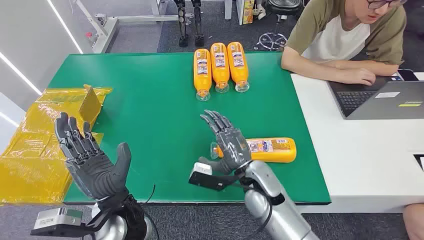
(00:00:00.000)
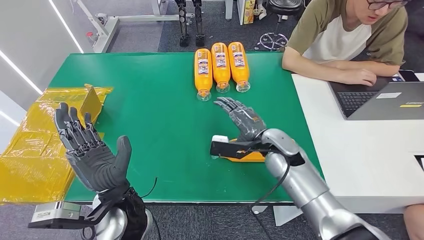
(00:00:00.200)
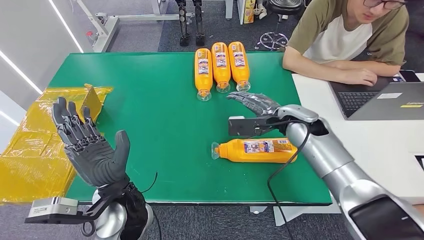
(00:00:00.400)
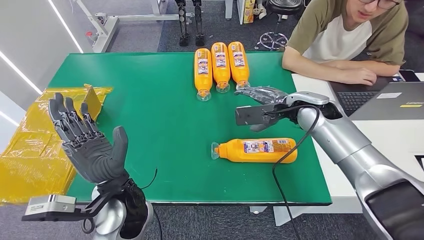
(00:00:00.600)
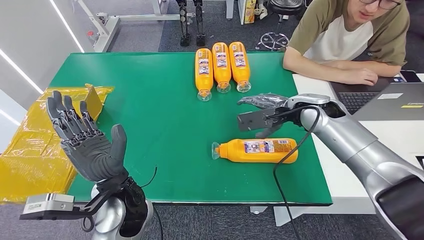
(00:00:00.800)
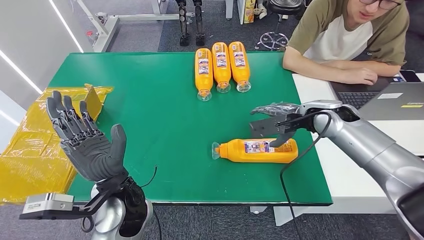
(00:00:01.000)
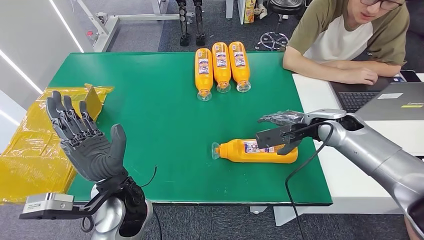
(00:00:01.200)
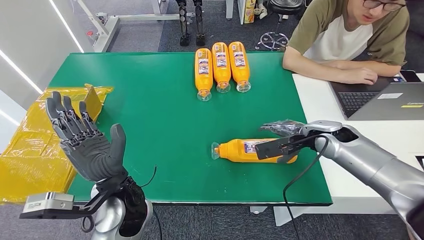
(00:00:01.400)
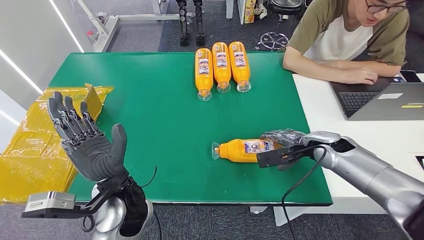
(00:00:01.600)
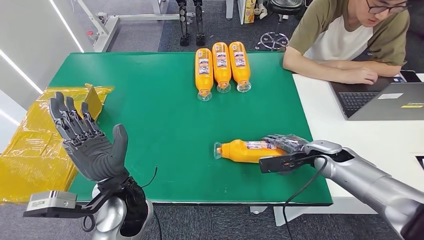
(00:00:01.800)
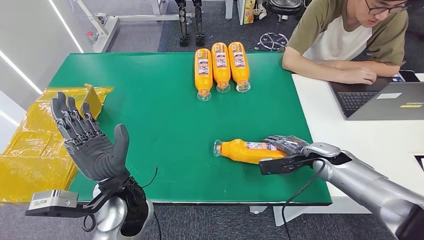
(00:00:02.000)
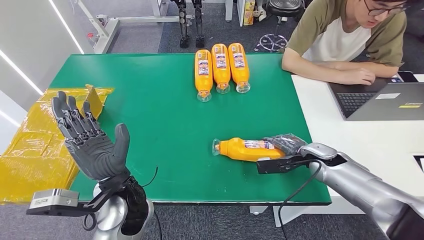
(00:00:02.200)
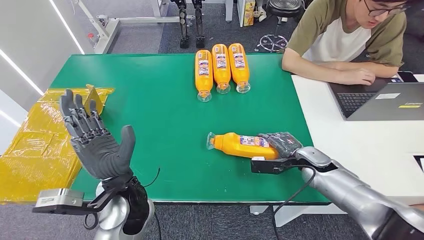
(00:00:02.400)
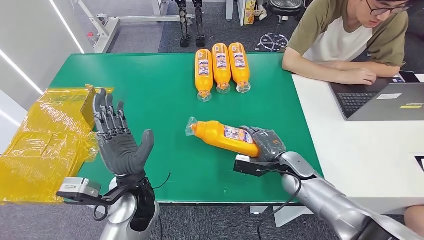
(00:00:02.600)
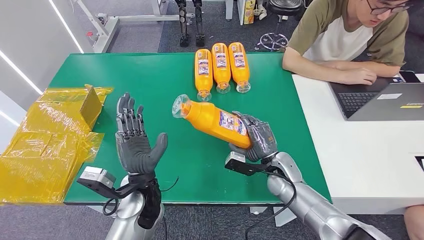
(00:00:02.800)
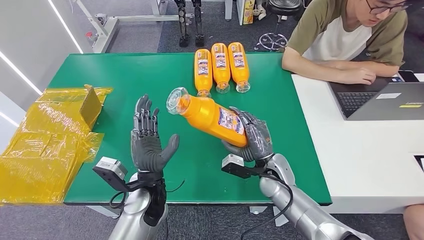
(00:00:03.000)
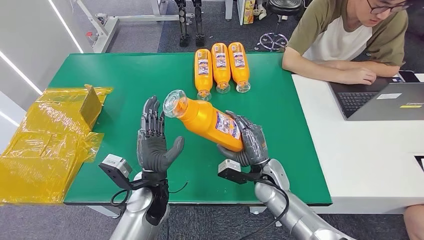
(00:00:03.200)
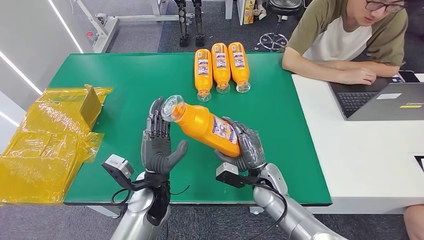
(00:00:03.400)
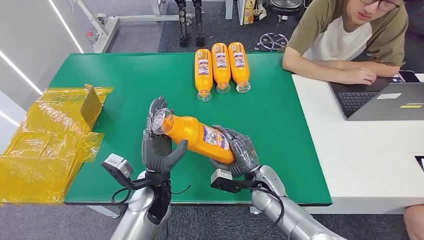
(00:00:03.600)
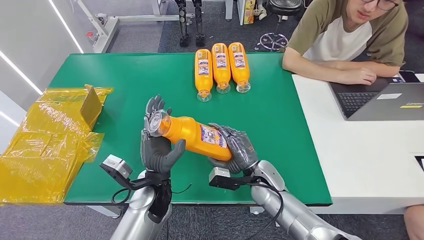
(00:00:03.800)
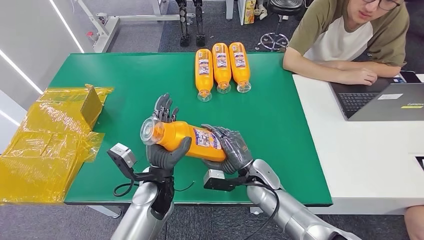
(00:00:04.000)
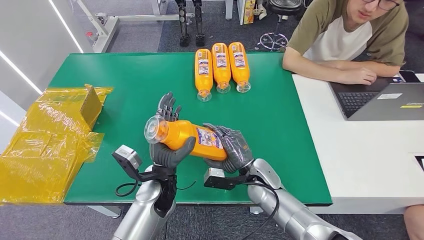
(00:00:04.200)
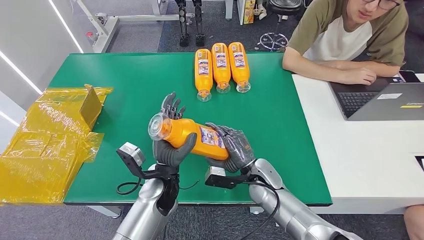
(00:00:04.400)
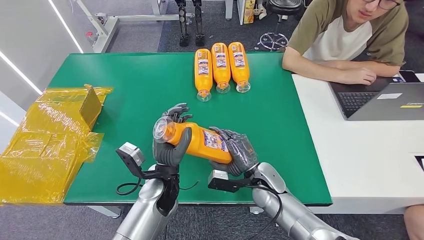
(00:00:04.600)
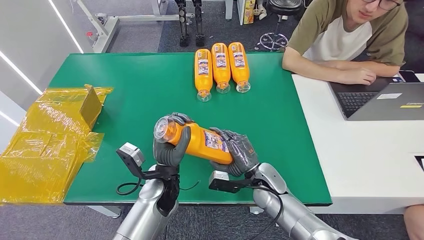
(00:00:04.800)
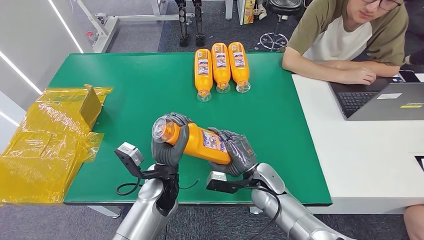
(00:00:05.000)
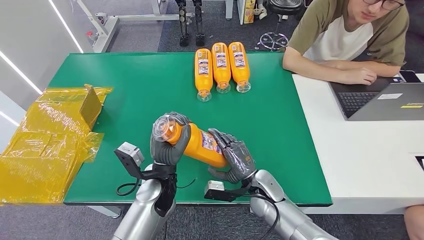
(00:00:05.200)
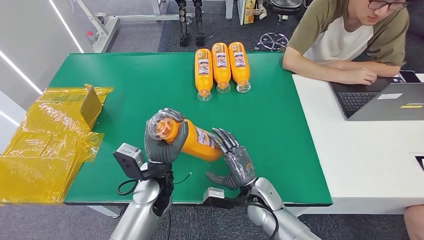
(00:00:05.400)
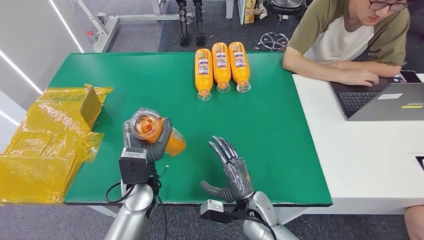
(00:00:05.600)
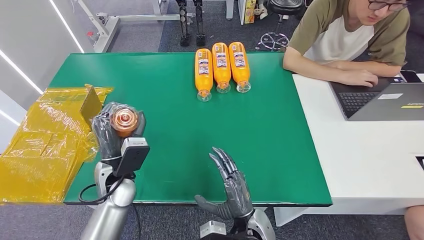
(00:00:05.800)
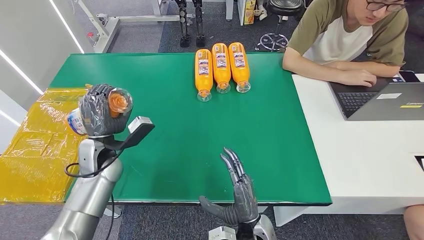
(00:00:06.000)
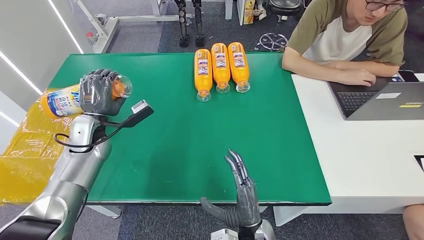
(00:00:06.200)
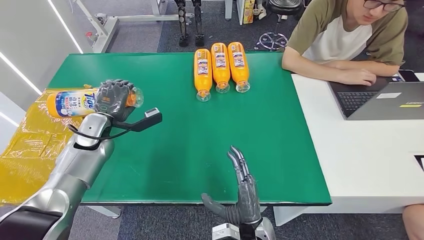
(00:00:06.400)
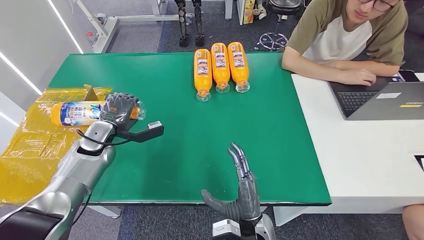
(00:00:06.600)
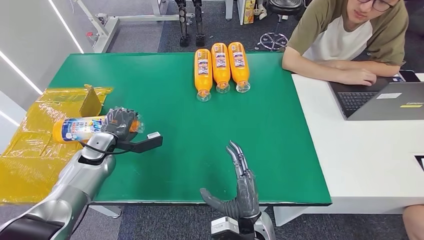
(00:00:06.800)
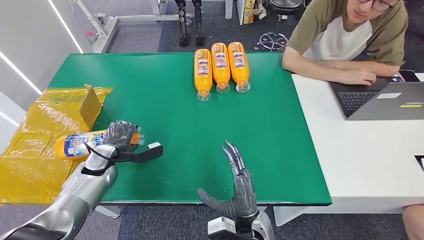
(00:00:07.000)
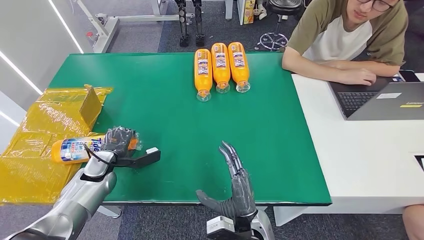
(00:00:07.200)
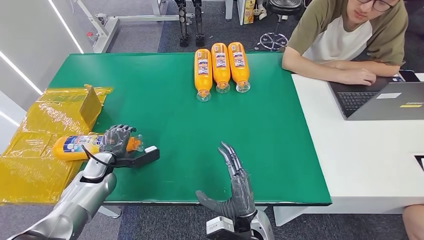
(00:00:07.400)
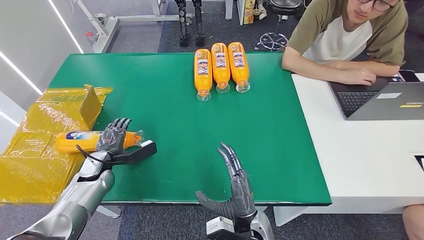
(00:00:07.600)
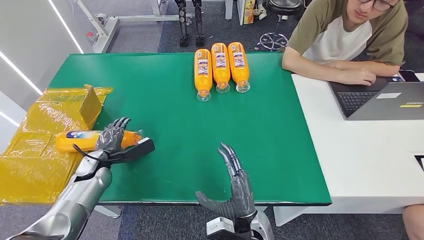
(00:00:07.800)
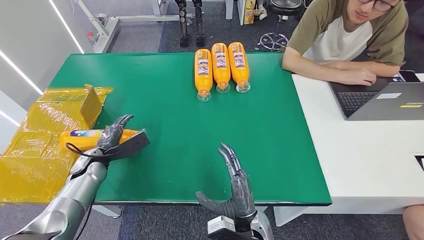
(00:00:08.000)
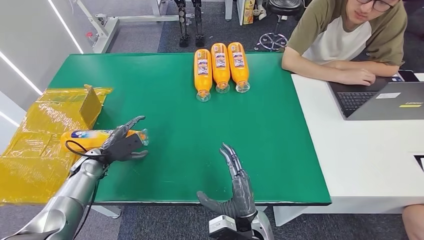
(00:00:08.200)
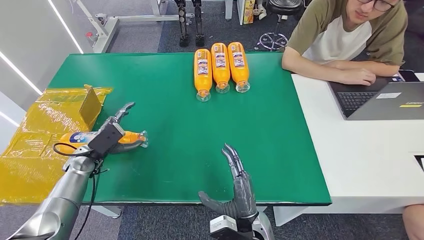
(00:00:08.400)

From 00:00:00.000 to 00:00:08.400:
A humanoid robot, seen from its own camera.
Step, from 00:00:00.000 to 00:00:02.800: Pick up the bottle from the table.
Step, from 00:00:03.200 to 00:00:08.400: Turn the bottle to the front side.
From 00:00:02.800 to 00:00:04.200: The right hand shifts about 10 cm to the left.
From 00:00:04.200 to 00:00:05.600: The right hand goes approximately 10 cm backward.
From 00:00:05.600 to 00:00:07.000: The right hand is displaced backward by roughly 5 cm. The left hand heads to the left, covering roughly 20 cm.
